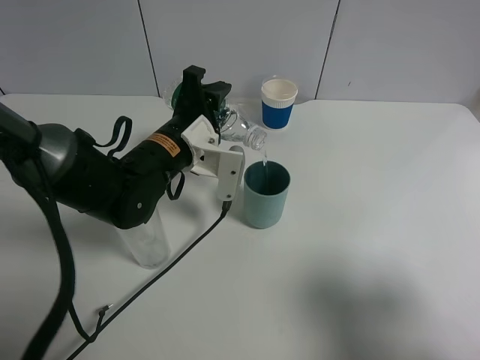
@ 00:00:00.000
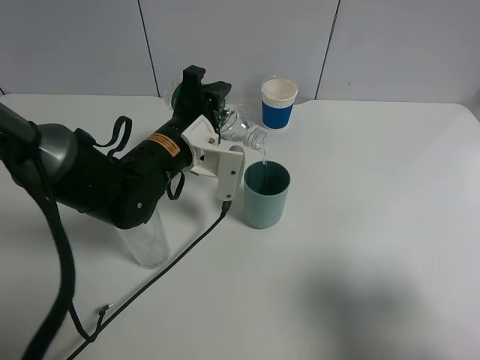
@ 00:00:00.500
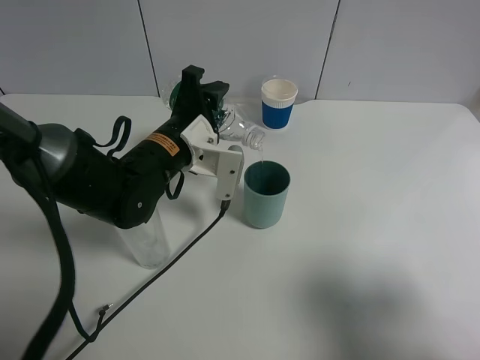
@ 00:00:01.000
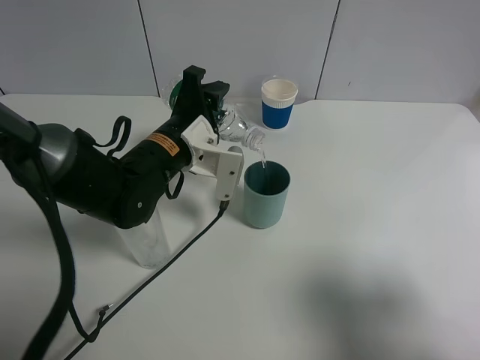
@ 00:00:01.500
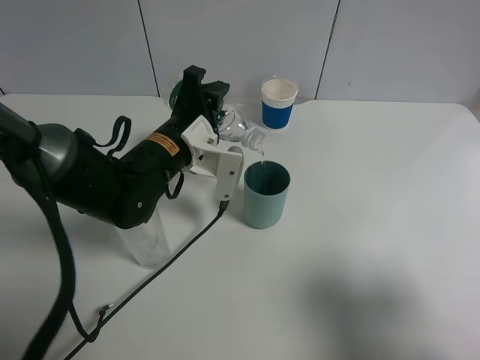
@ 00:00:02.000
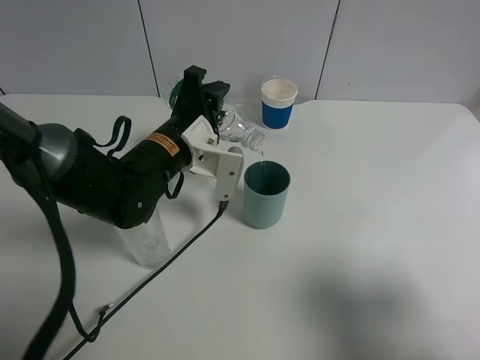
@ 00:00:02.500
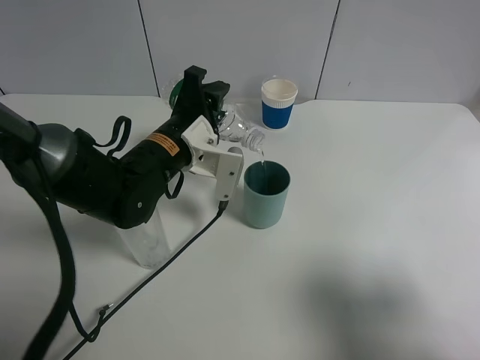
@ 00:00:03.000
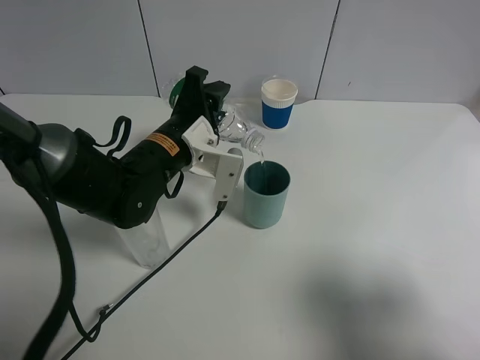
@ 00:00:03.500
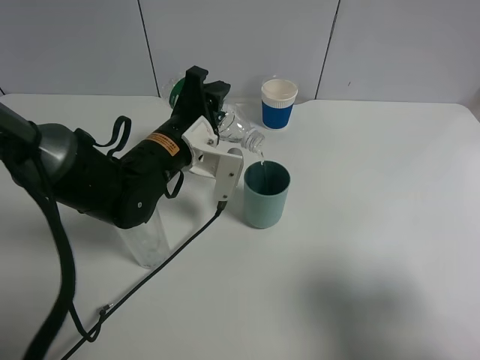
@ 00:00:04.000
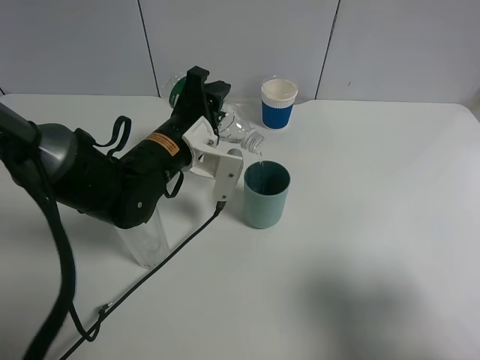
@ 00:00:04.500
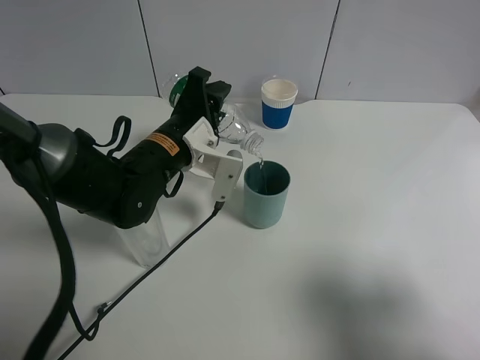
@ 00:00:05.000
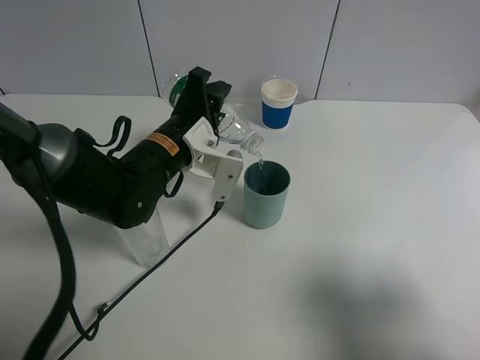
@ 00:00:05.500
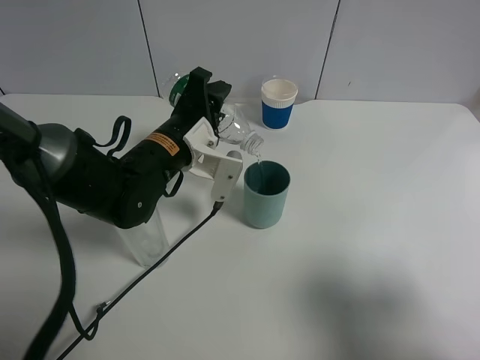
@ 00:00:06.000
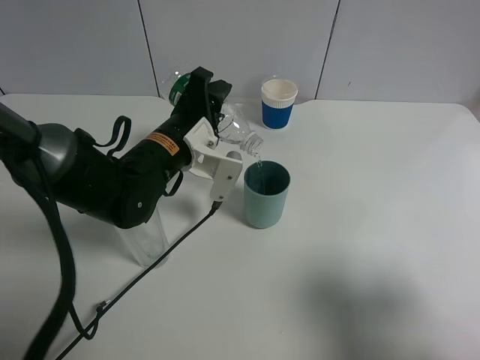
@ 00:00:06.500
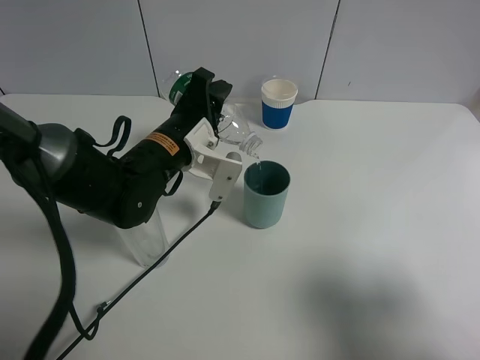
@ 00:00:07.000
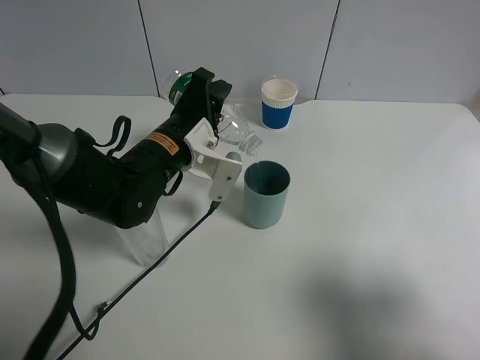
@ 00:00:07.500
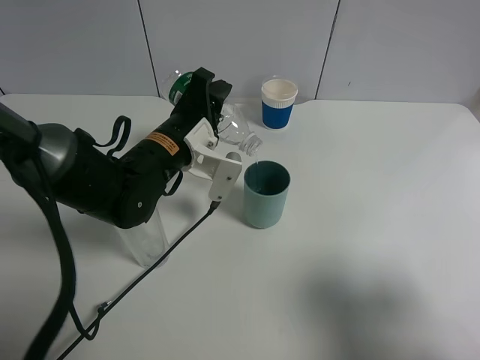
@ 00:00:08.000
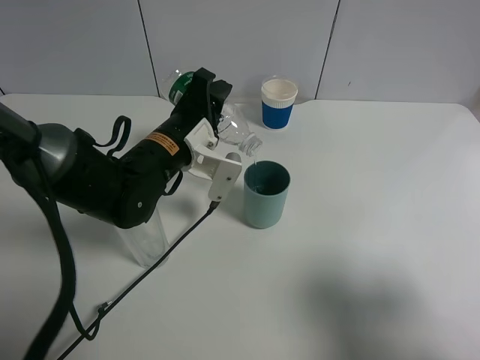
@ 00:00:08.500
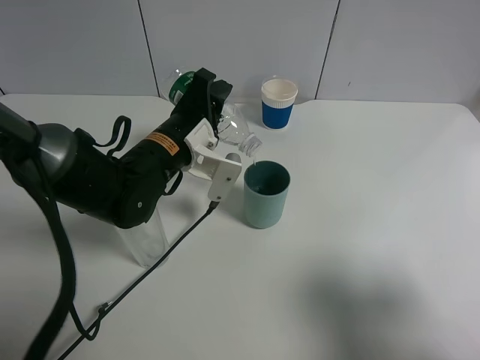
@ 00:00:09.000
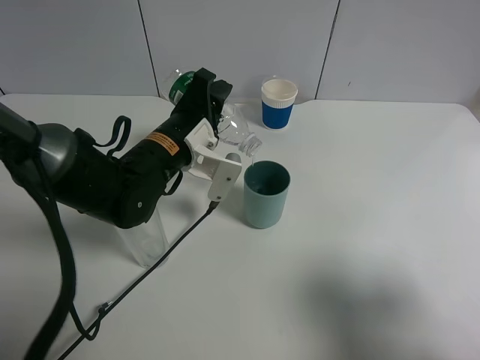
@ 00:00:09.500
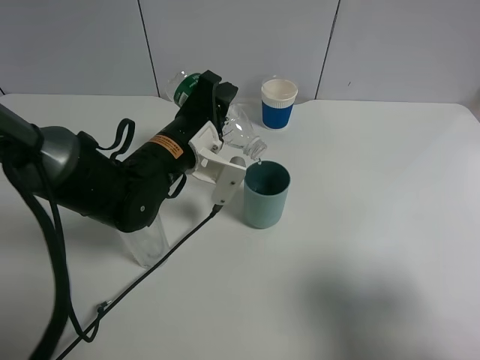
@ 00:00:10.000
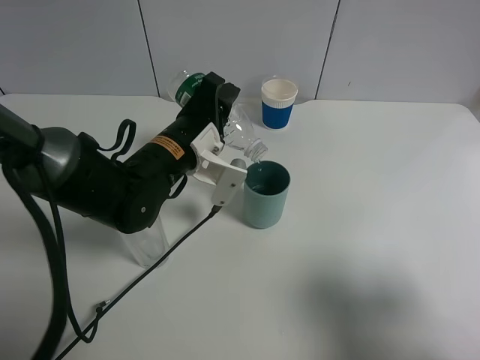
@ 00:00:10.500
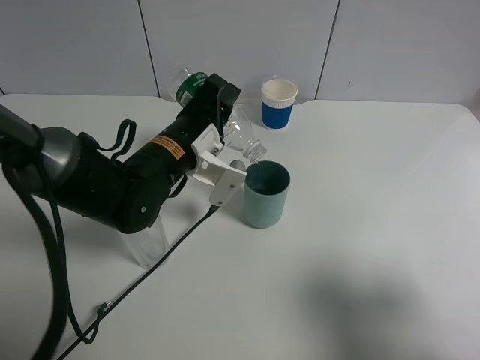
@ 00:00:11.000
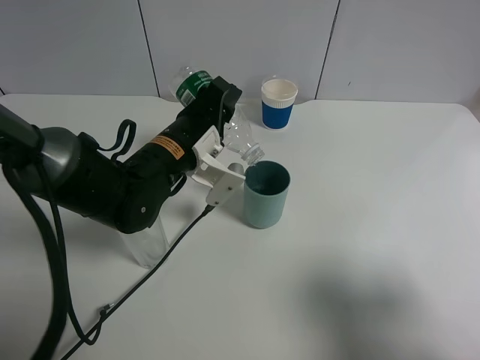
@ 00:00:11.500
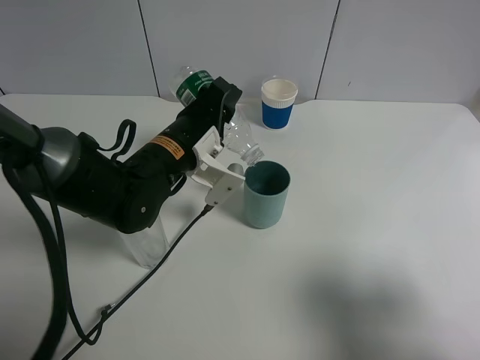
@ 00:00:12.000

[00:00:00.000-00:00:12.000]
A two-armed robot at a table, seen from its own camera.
Task of the whole recording: use a gripper to hold the bottle of the drink and pour it into a random cup.
00:00:00.000 to 00:00:04.000: The two grippers keep their place.
00:00:04.000 to 00:00:06.000: Neither gripper changes place.
00:00:06.000 to 00:00:10.000: The two grippers keep their place.
00:00:10.000 to 00:00:12.000: The grippers make only small movements.

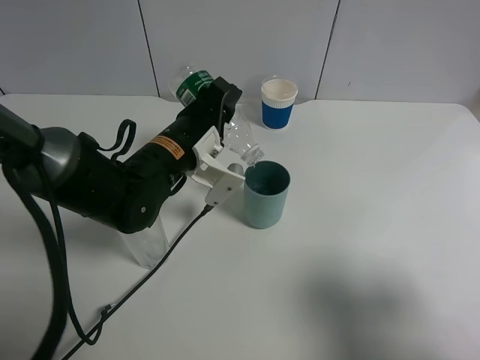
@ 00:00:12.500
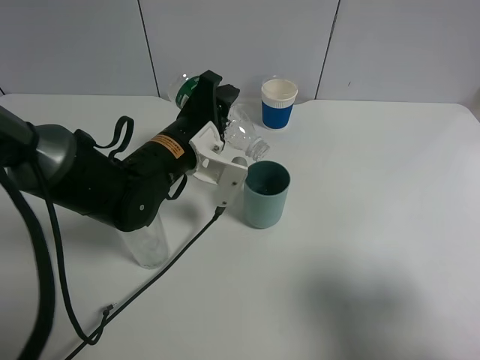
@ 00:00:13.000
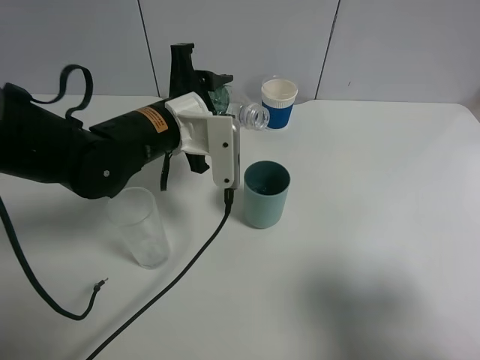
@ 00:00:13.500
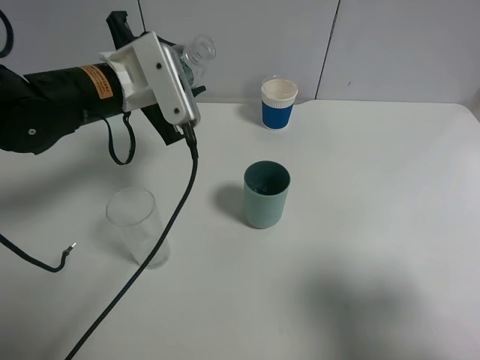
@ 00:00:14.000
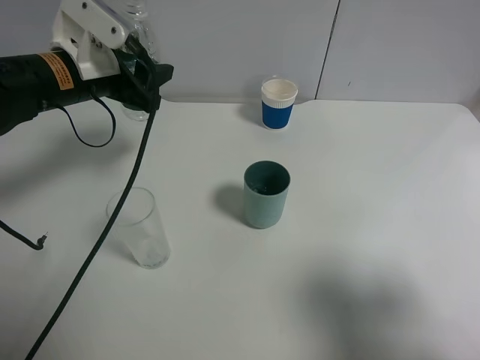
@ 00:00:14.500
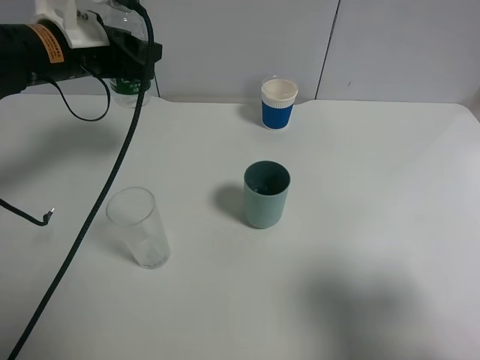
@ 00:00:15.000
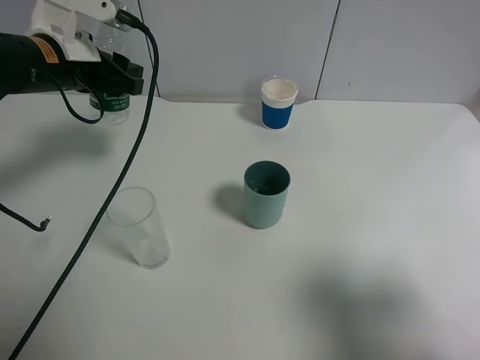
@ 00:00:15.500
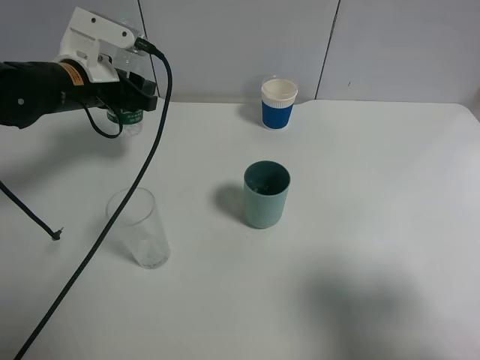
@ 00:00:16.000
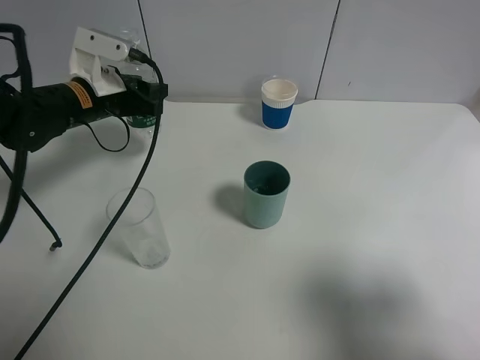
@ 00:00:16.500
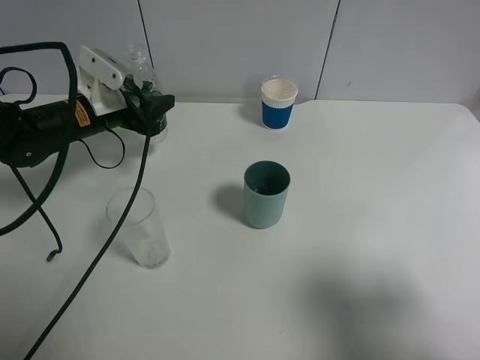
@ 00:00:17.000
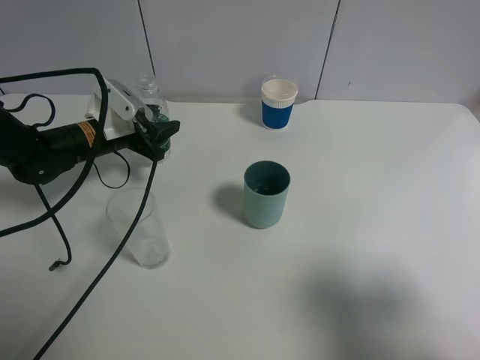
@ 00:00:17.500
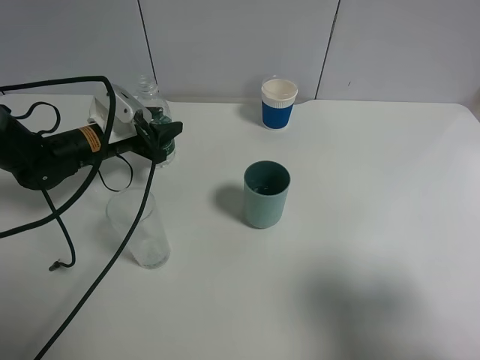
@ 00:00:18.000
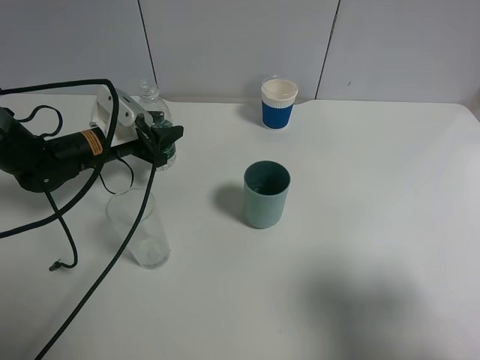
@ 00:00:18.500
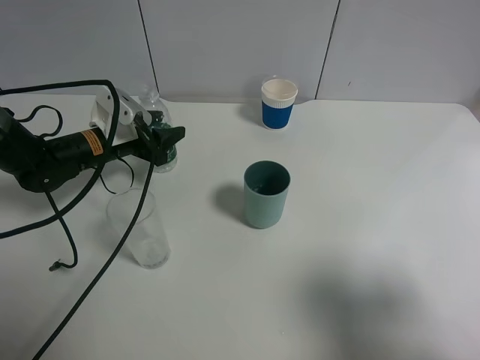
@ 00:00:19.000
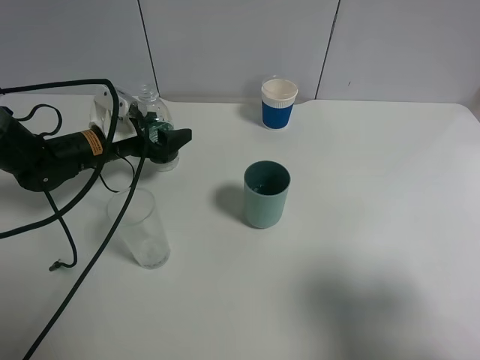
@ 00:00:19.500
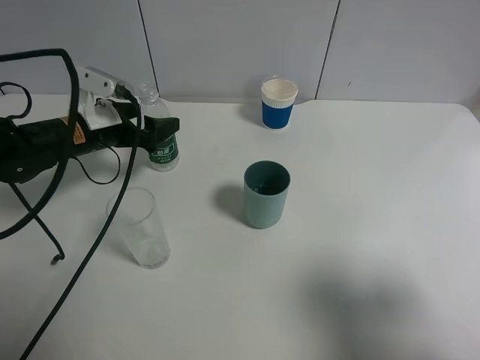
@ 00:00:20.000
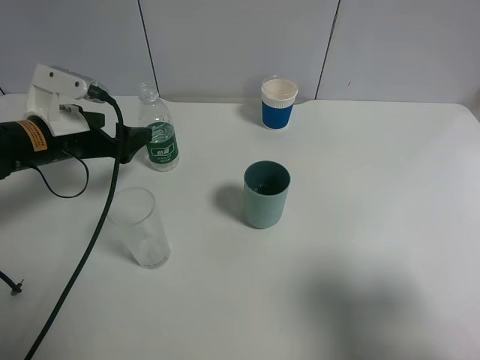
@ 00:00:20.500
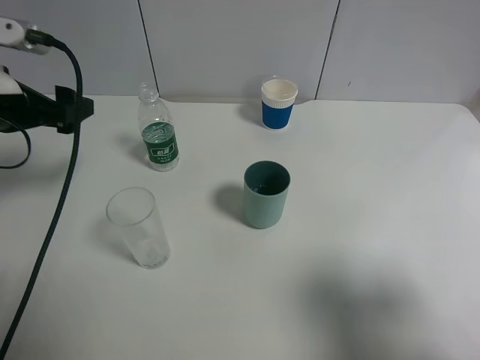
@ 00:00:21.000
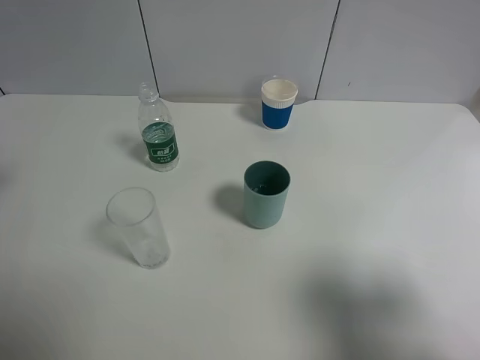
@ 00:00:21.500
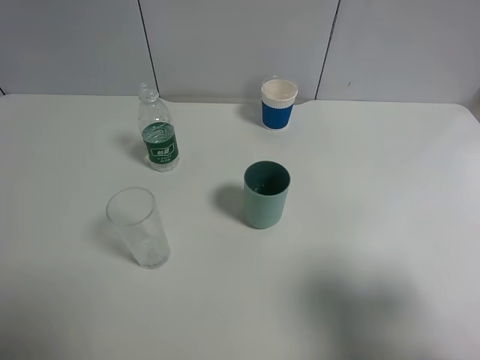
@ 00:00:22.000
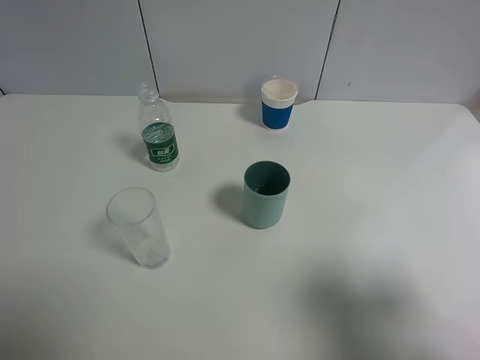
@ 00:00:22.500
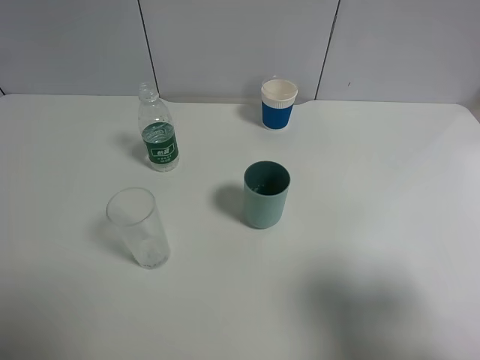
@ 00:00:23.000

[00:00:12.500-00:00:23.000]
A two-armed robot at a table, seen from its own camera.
Task of the whole recording: use a gripper to hold the bottle of the drink and pour it into a random cup.
Step, 00:00:13.500 to 00:00:19.000: Place the mineral water bottle on the table with the left gripper.
00:00:12.500 to 00:00:14.500: The left gripper goes about 15 cm to the left and upward.
00:00:14.500 to 00:00:16.500: The left gripper moves downward, roughly 5 cm.
00:00:16.500 to 00:00:19.000: The left gripper moves downward, roughly 10 cm.
00:00:19.000 to 00:00:21.000: The left gripper moves upward, backward and to the left, about 20 cm, and opens.
00:00:21.000 to 00:00:23.000: The left gripper heads backward, covering about 25 cm.

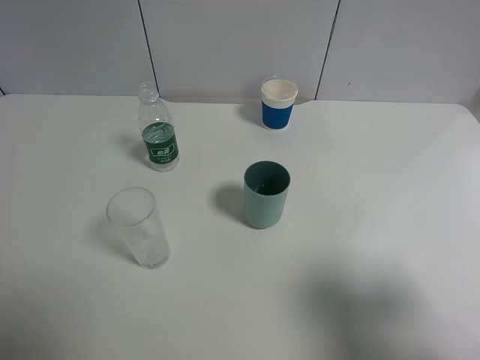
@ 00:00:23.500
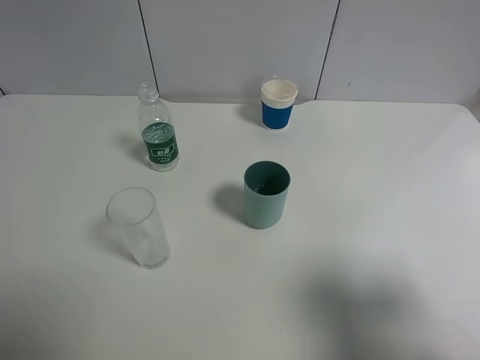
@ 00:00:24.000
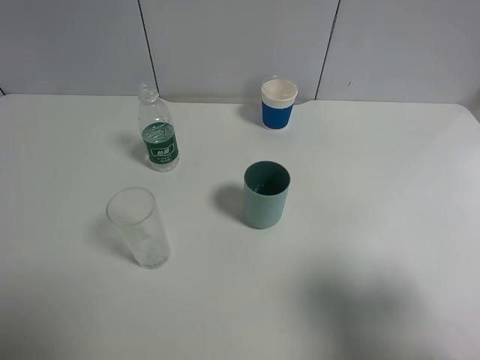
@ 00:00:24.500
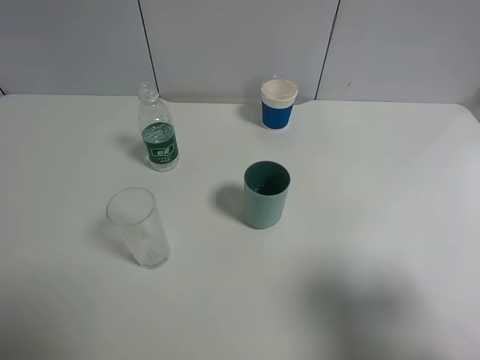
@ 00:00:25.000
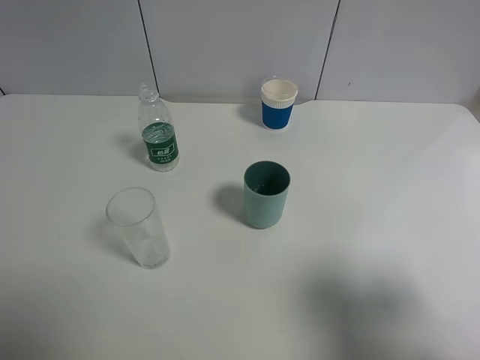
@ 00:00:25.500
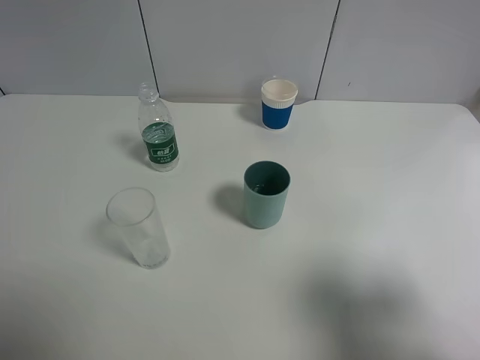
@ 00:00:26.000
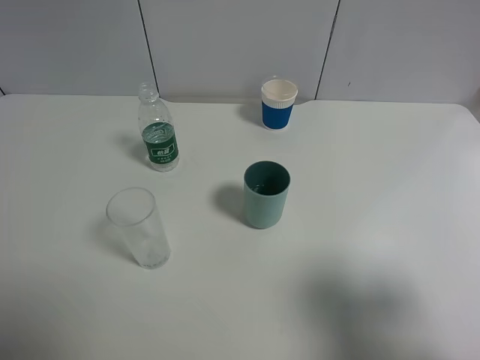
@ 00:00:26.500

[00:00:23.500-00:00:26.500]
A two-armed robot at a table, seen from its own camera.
Task of the whole recording: use a gripper to hold the bottle of the drink and pour it into a random cup.
00:00:25.000 to 00:00:26.500: Both grippers stay about where they are.
